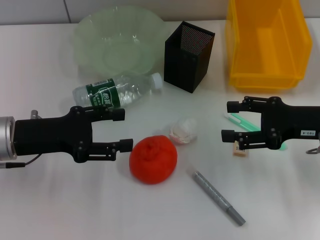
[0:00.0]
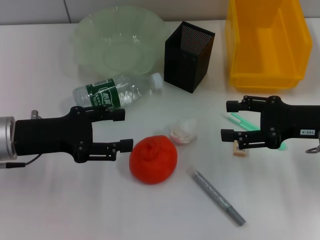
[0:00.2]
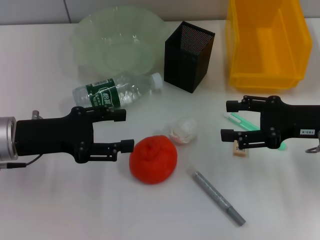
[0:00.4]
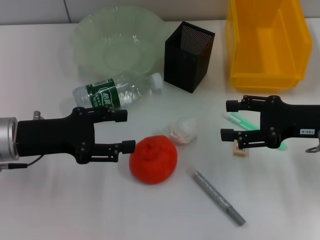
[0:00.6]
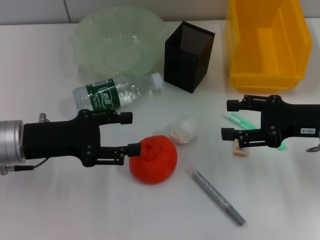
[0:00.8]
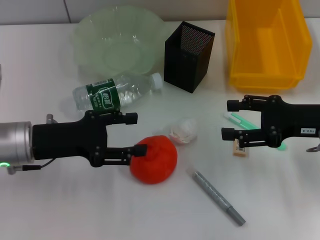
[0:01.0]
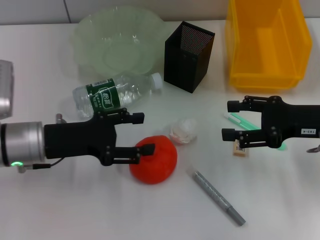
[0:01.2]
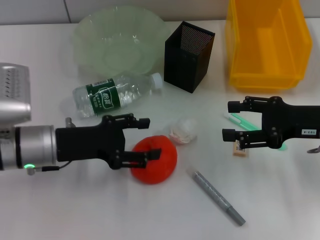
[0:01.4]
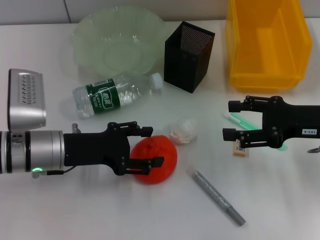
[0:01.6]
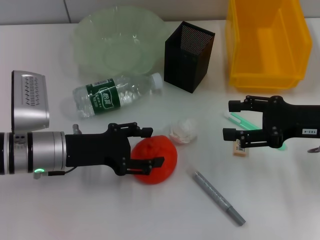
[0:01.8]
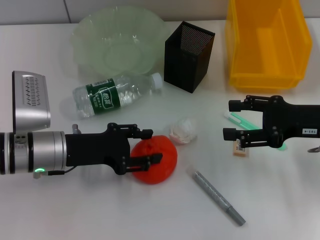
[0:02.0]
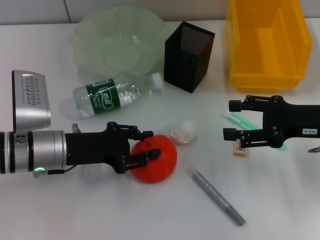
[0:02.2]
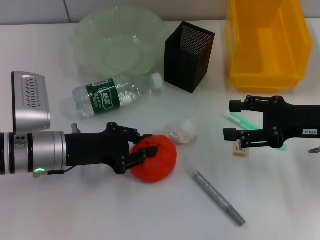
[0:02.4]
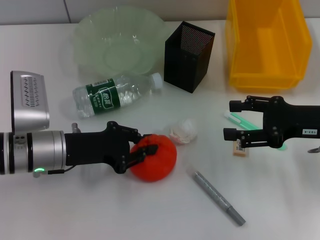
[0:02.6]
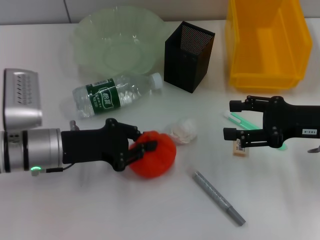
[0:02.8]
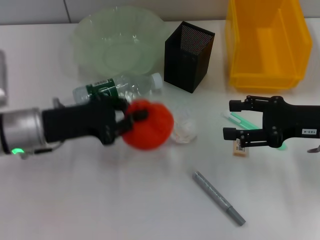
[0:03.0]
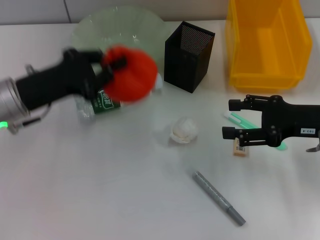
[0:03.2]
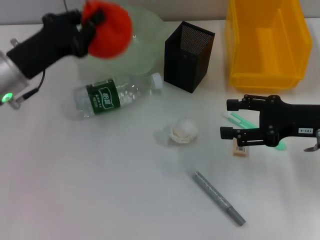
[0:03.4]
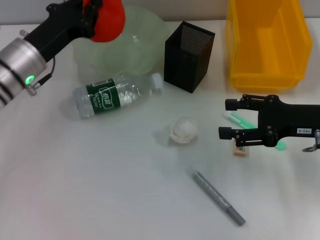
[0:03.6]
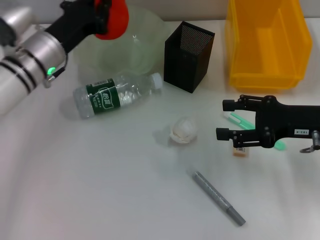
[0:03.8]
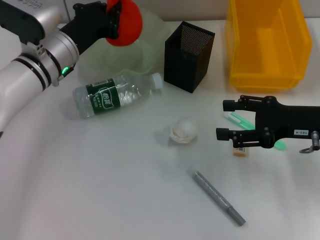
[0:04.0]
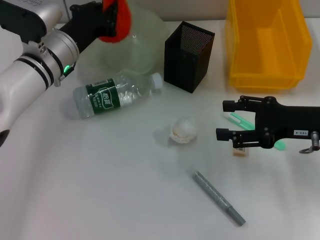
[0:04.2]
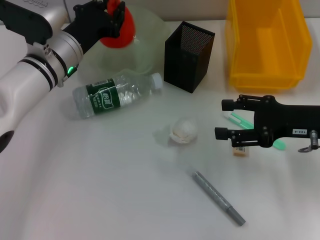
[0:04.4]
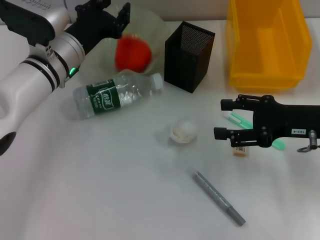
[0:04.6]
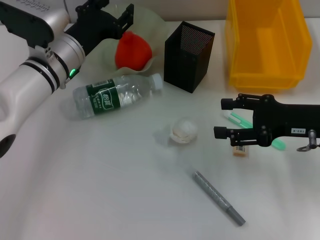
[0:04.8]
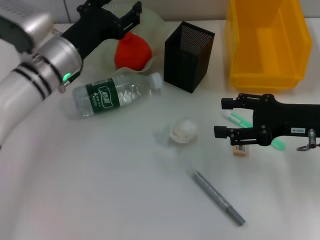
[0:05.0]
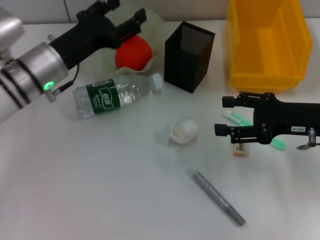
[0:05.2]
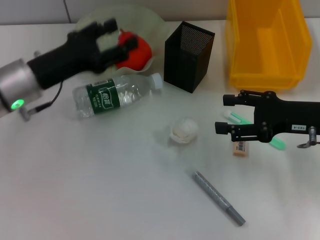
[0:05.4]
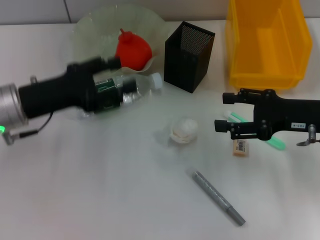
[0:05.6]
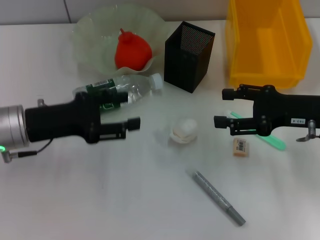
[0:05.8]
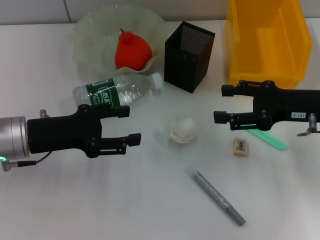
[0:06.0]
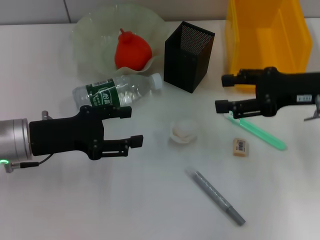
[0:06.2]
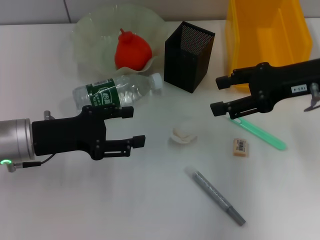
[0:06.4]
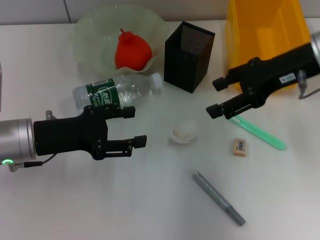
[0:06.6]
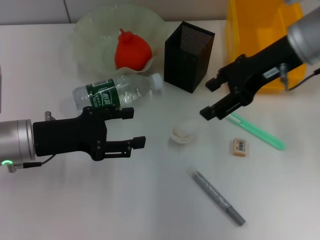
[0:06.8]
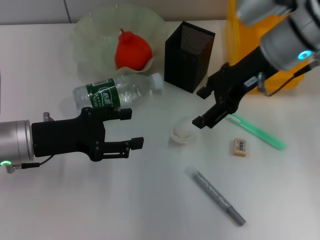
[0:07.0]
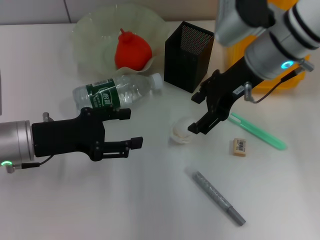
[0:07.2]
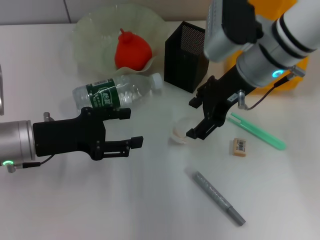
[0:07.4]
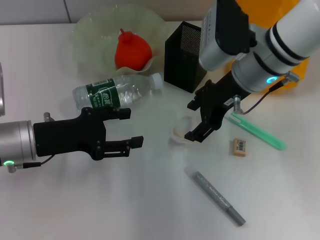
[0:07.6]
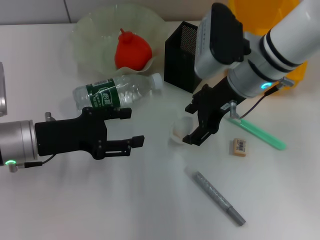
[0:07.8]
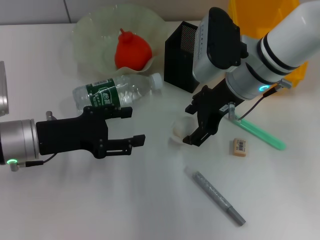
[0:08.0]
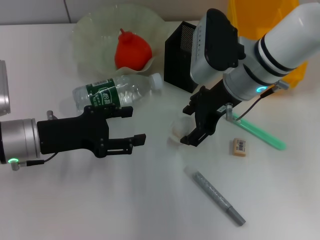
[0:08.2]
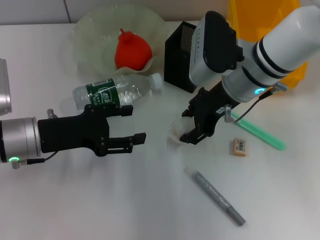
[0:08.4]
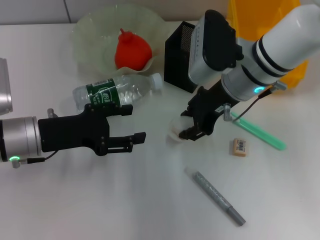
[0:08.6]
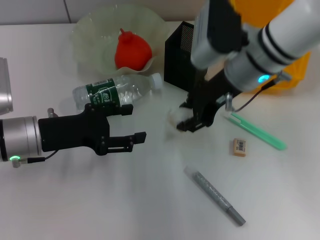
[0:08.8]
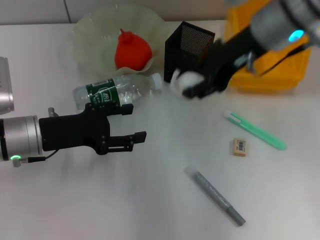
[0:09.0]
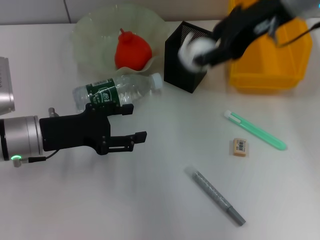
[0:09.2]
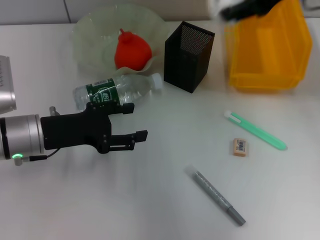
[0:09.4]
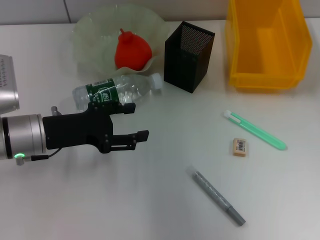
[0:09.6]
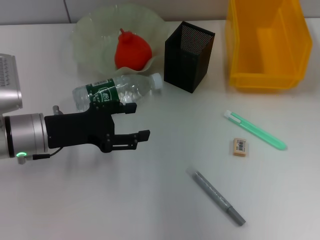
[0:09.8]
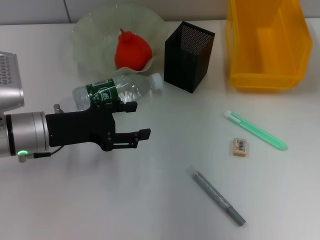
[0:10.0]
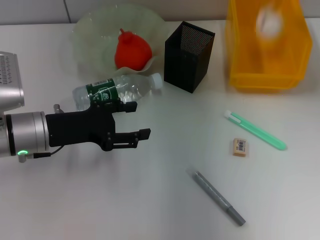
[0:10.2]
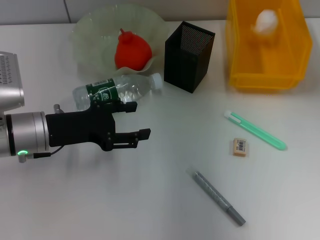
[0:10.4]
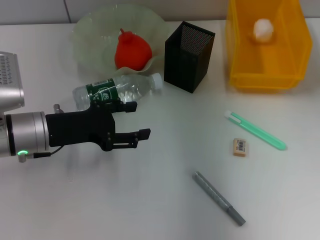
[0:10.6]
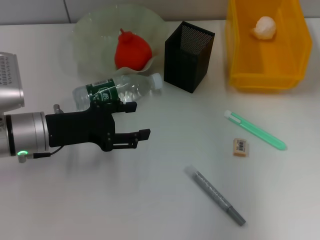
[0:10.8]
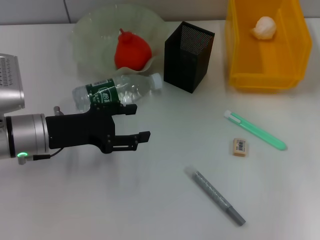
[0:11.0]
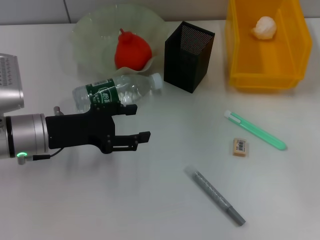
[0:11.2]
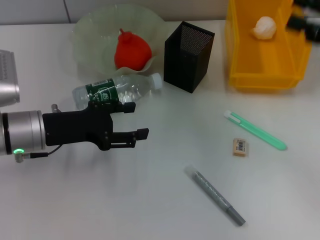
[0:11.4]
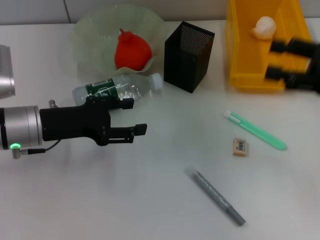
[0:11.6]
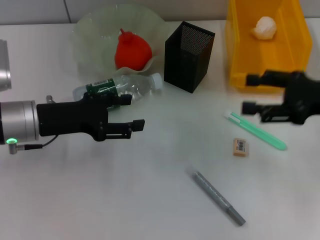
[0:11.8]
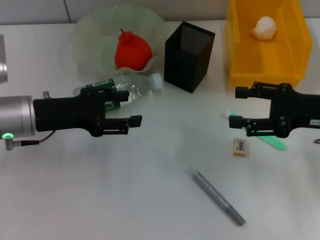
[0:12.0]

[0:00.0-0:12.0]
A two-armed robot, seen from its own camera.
Step, 0:00.0 to 0:02.6: Grab the orange with the left hand.
Step, 0:02.8 to 0:05.0: Place the orange into the fruit bowl with the left hand.
Step, 0:05.2 to 0:08.4: Grab the paper ball with the right hand.
Step, 0:08.6 to 0:10.6: Place the paper ball into the trash can with the right hand.
0:00.0 to 0:01.6: The left gripper moves to the right, roughly 5 cm.
0:01.6 to 0:03.0: The left gripper closes up.
0:03.0 to 0:04.4: The left gripper moves forward, approximately 10 cm.
0:04.4 to 0:06.0: The left gripper shifts approximately 15 cm backward and to the left, and opens.
0:06.0 to 0:07.6: The right gripper moves to the left and forward, about 15 cm.
0:07.6 to 0:09.0: The right gripper moves upward, roughly 10 cm, and closes.
0:09.0 to 0:10.4: The right gripper is displaced to the right and forward by approximately 15 cm, and opens up.
0:10.4 to 0:12.0: The right gripper moves backward and downward, approximately 20 cm.

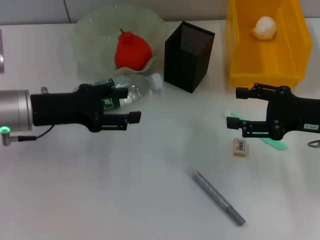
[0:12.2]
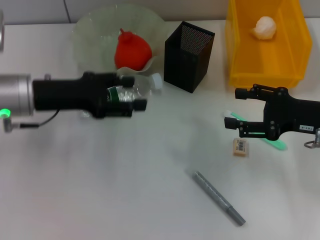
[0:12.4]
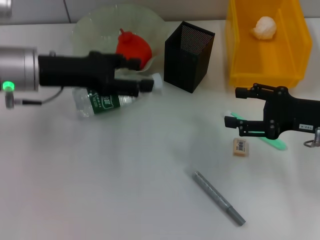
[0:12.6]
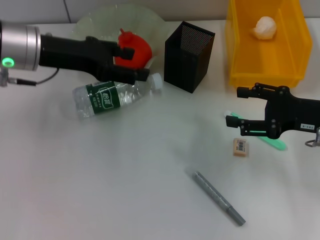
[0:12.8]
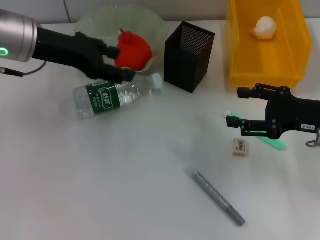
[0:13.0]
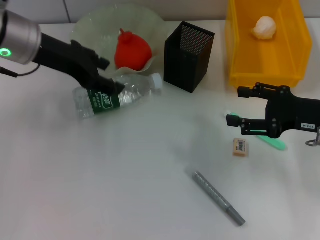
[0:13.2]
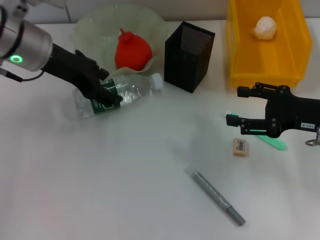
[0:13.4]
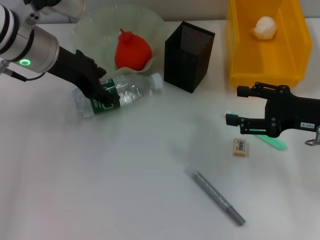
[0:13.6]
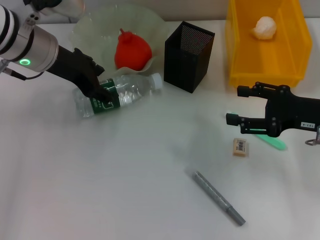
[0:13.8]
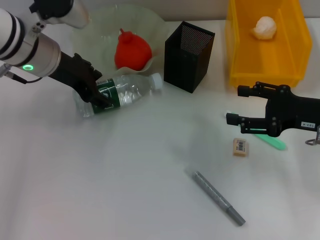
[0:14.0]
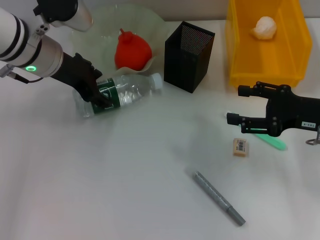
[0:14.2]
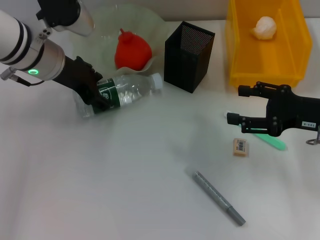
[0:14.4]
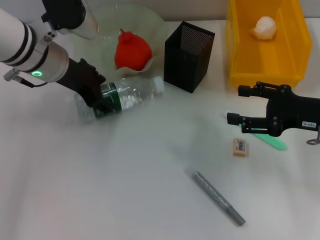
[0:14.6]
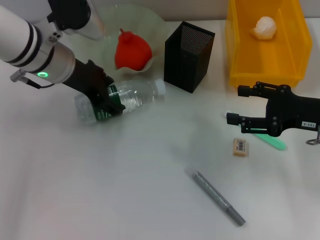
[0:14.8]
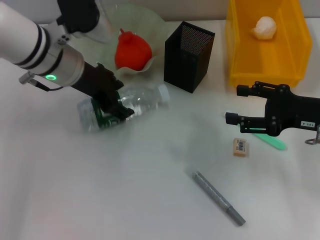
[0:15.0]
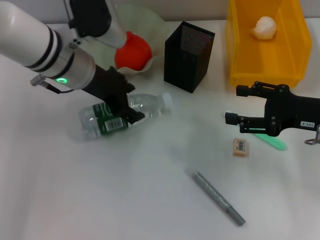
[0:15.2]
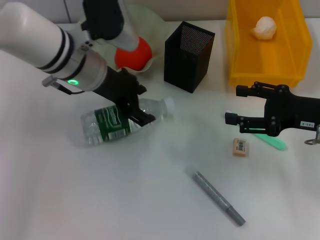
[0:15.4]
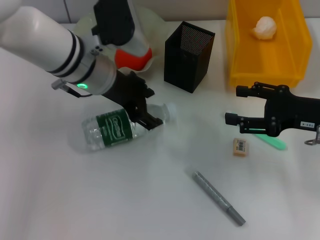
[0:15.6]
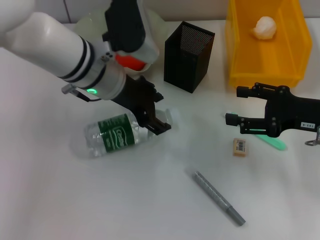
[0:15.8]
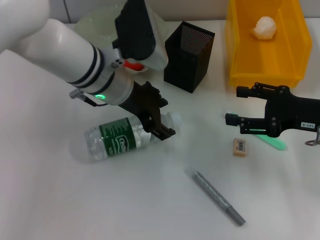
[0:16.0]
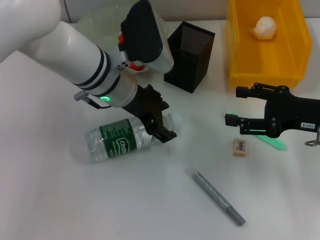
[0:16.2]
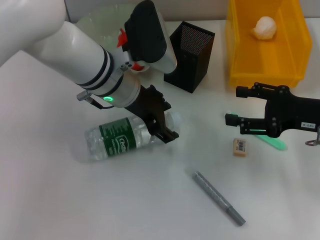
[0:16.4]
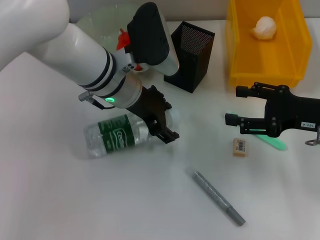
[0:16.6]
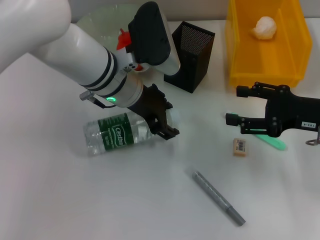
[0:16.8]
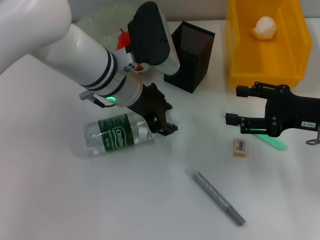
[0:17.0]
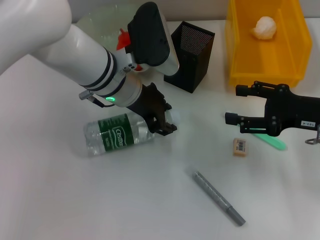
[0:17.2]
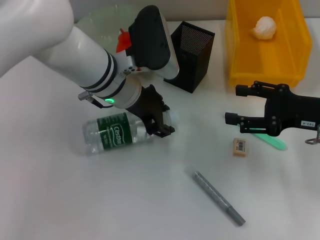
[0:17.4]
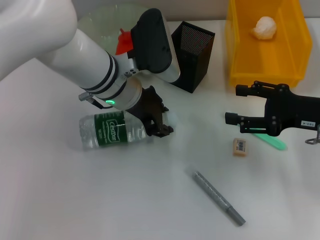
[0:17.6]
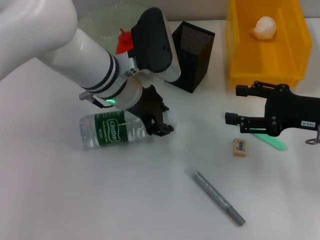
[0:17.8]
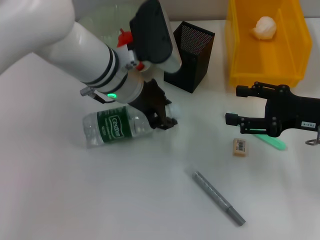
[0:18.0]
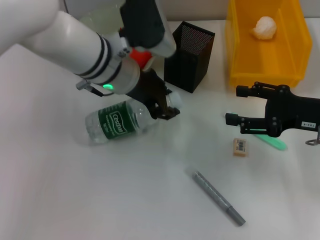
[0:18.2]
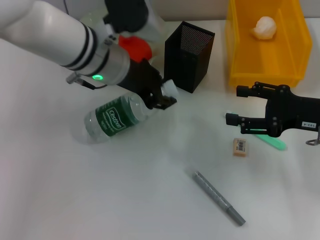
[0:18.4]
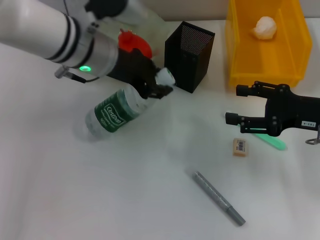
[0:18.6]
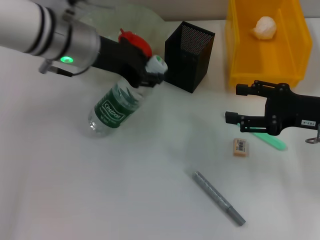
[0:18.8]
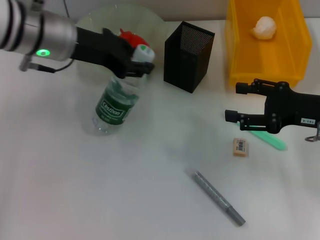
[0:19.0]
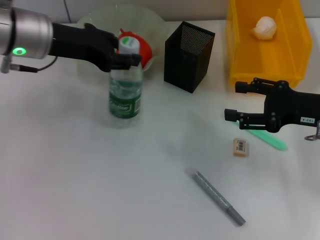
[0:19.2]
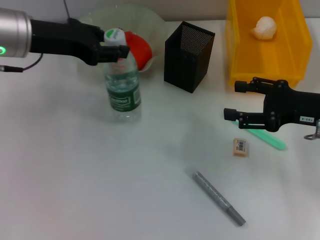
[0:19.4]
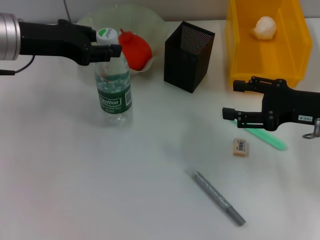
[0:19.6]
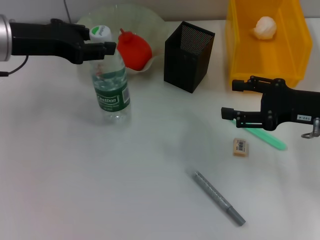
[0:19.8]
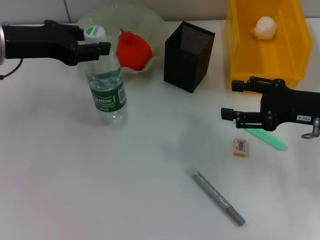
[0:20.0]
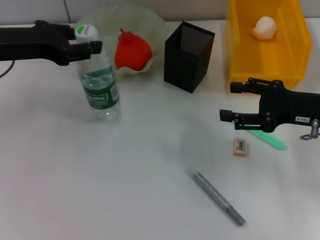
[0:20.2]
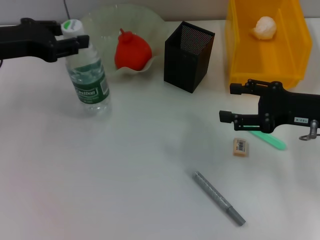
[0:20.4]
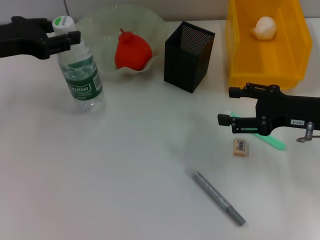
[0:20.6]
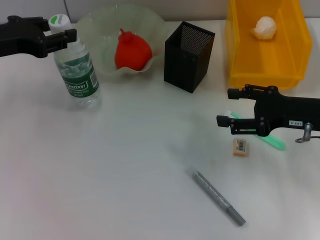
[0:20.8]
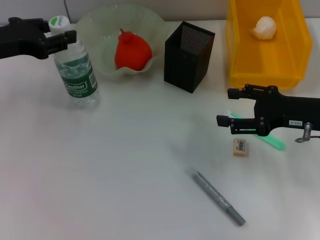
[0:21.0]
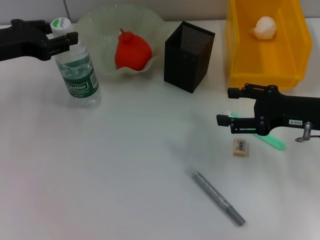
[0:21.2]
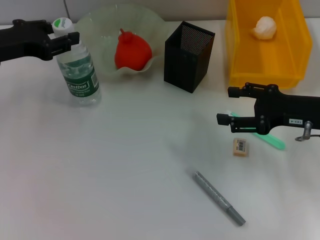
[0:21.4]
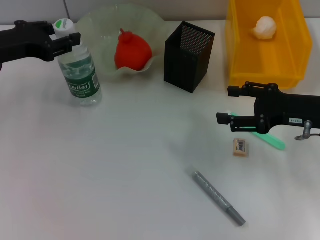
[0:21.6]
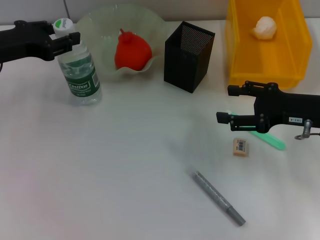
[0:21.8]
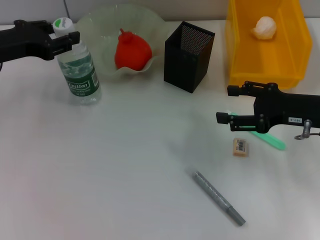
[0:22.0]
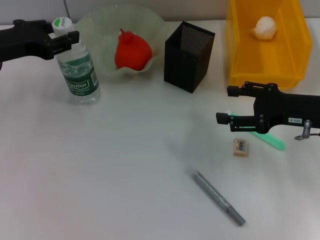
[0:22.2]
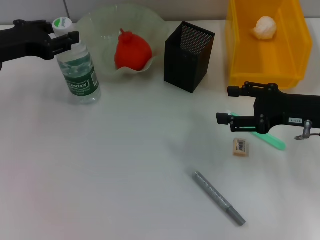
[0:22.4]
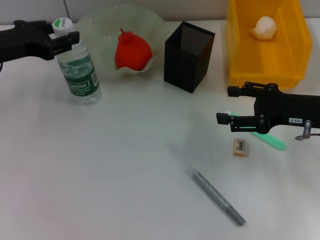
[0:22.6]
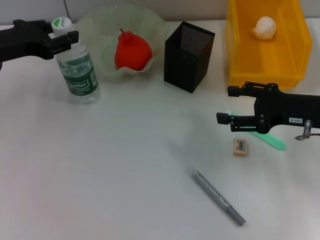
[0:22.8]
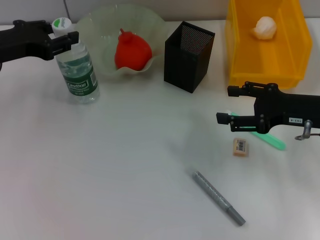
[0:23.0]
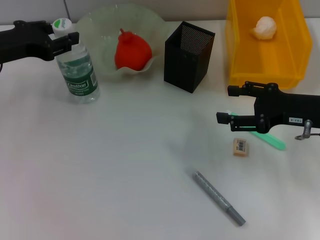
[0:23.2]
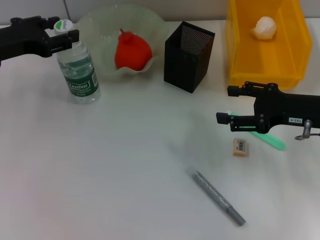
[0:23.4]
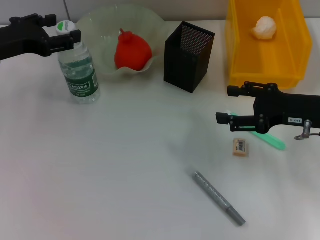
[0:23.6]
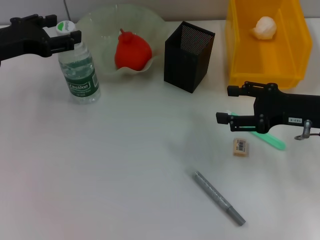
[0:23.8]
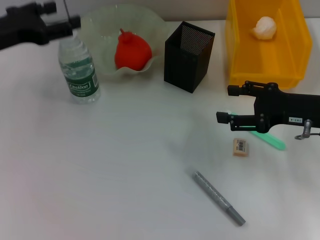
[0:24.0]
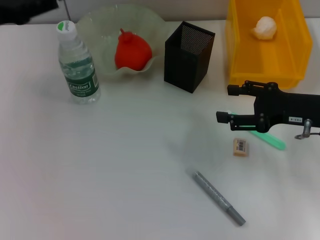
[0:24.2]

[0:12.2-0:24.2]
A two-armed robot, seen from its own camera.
Step, 0:12.2 to 0:17.6: Grab the water bottle with the left hand.
Step, 0:17.8 to 0:23.6: Place the water bottle on the table with the left hand.
0:12.2 to 0:13.8: The left gripper shifts about 10 cm upward, forward and to the right.
0:13.8 to 0:15.2: The left gripper moves about 5 cm.
0:15.2 to 0:16.6: The left gripper moves to the right, some 5 cm.
0:16.6 to 0:18.2: The left gripper closes its fingers.
0:18.2 to 0:19.8: The left gripper moves to the left, approximately 15 cm.
0:19.8 to 0:21.2: The left gripper ends up roughly 5 cm from where it was.
0:21.2 to 0:22.6: Neither gripper changes place.
0:22.6 to 0:24.2: The left gripper opens its fingers.
